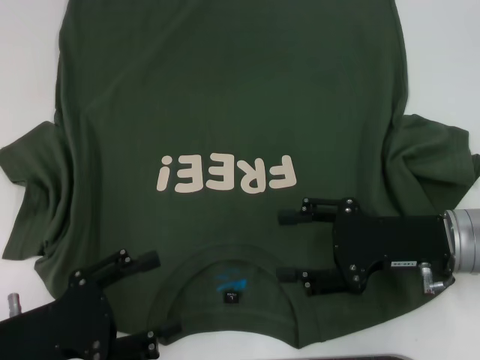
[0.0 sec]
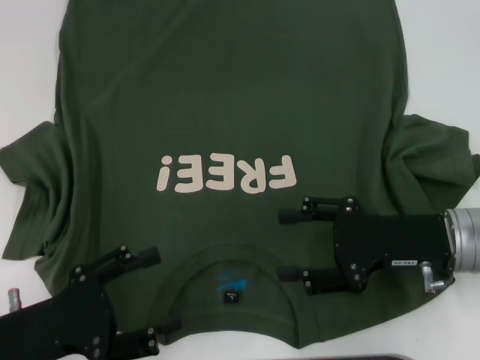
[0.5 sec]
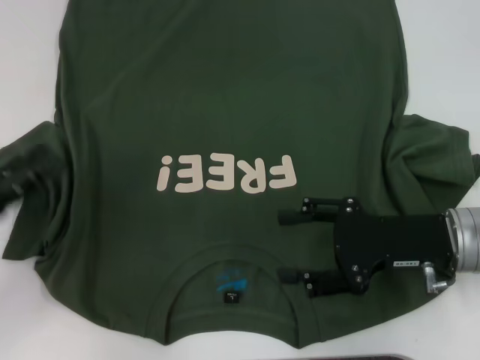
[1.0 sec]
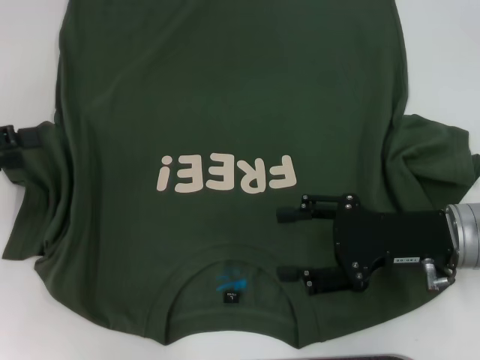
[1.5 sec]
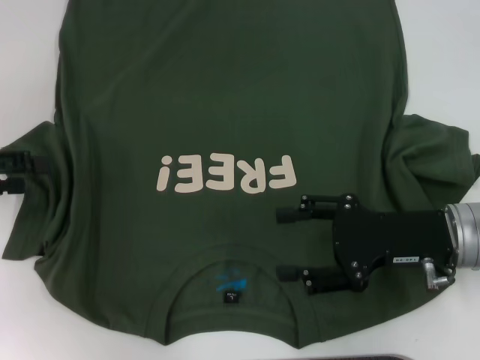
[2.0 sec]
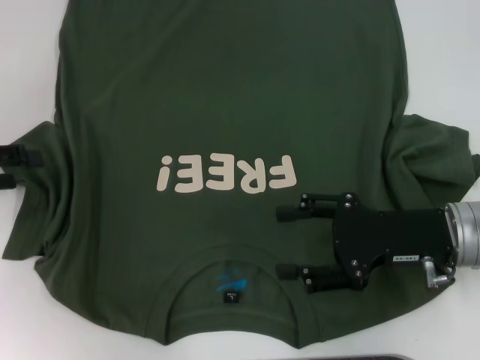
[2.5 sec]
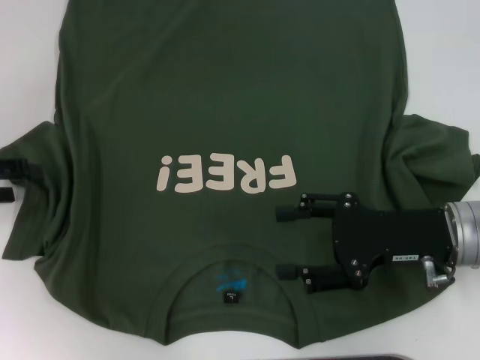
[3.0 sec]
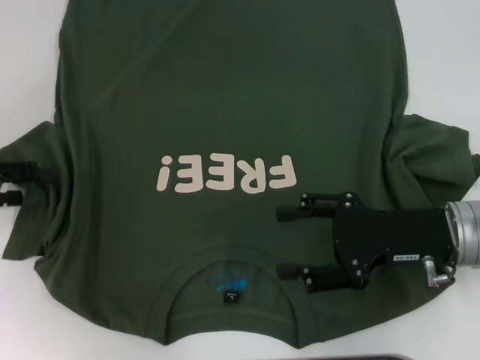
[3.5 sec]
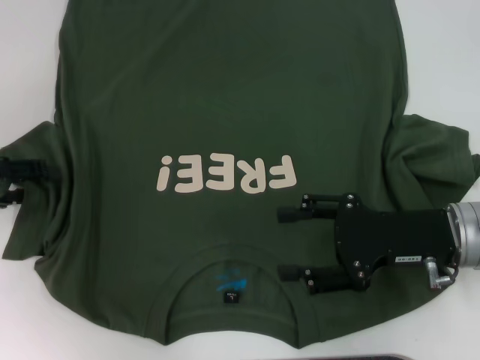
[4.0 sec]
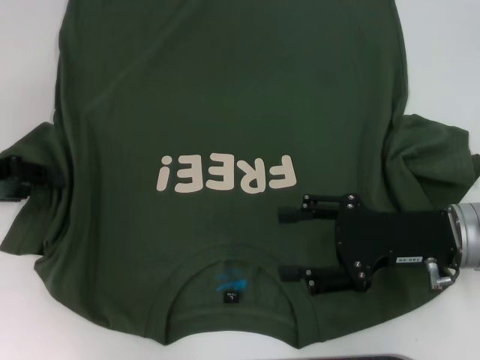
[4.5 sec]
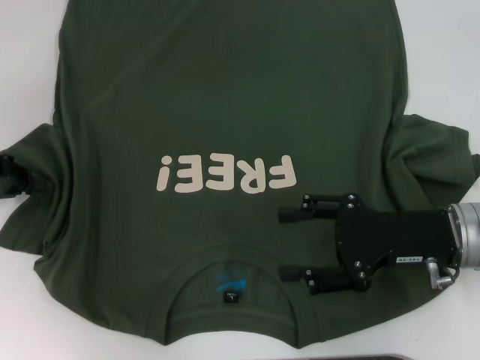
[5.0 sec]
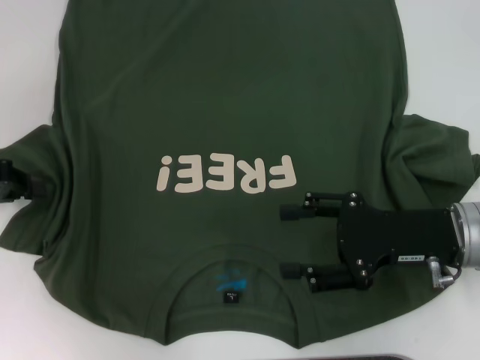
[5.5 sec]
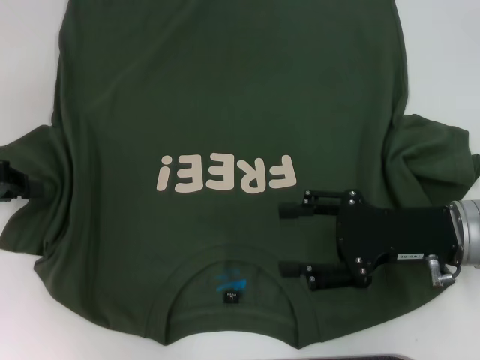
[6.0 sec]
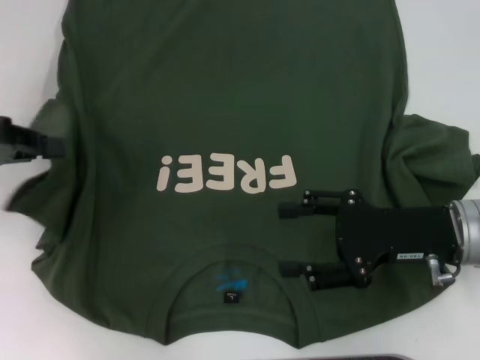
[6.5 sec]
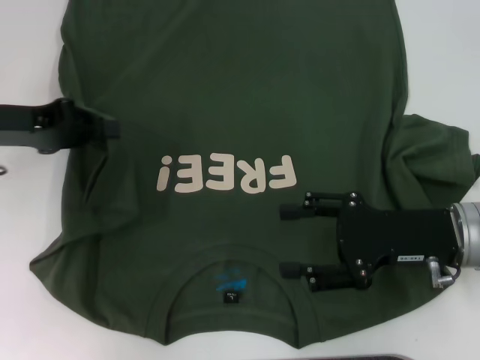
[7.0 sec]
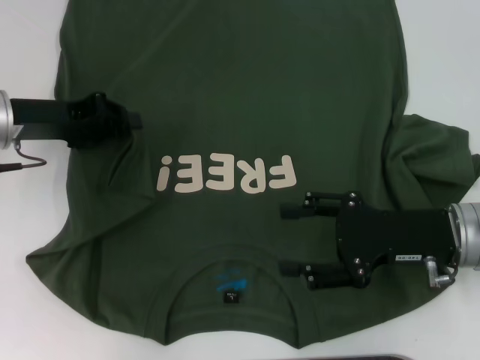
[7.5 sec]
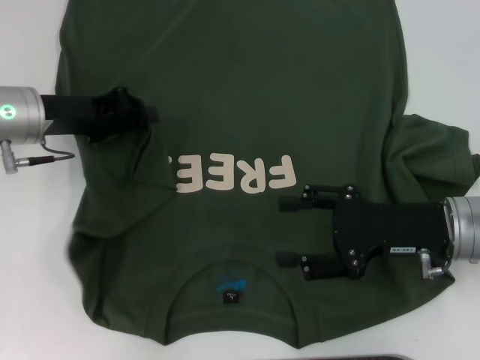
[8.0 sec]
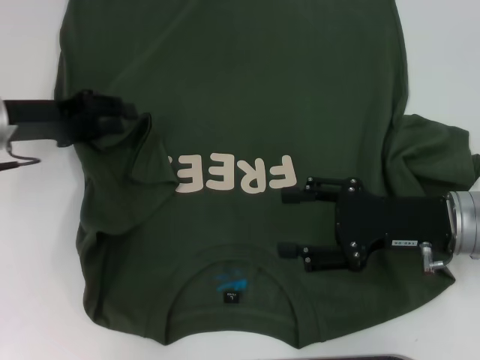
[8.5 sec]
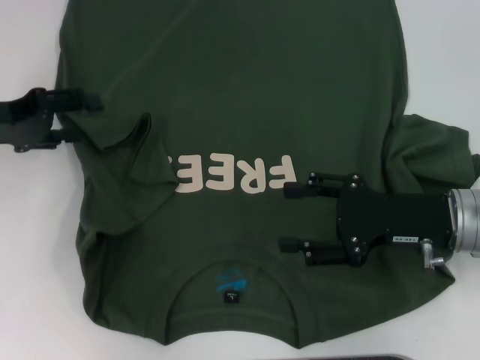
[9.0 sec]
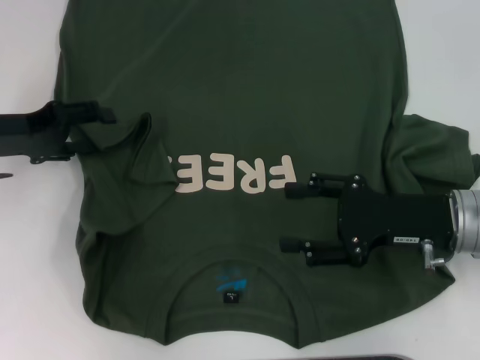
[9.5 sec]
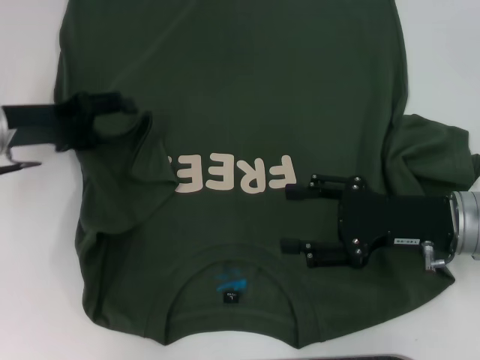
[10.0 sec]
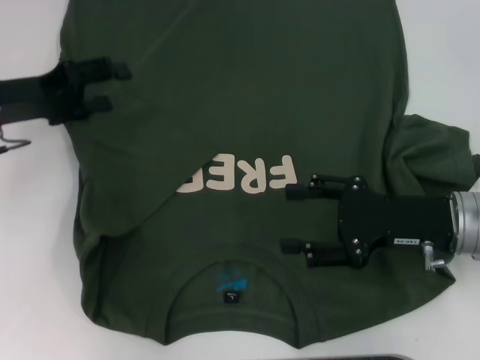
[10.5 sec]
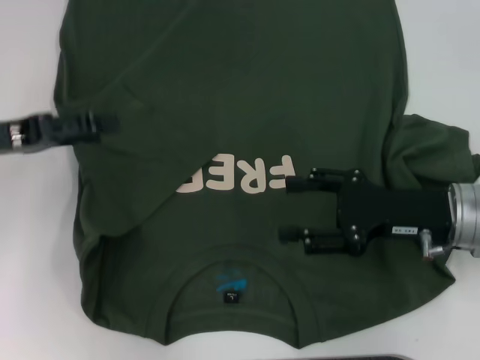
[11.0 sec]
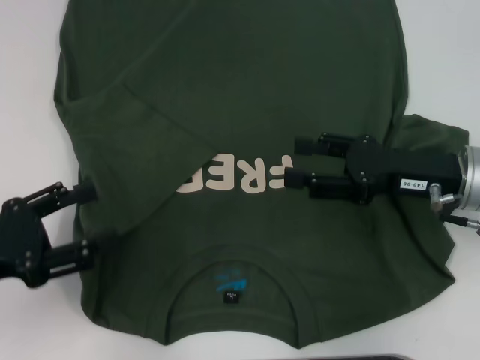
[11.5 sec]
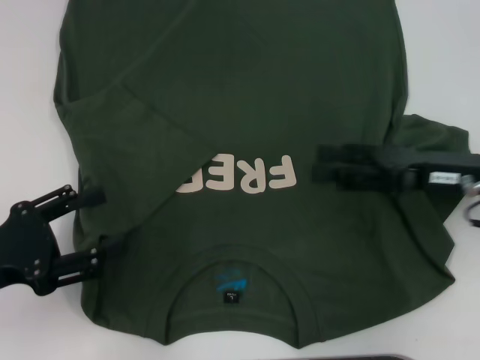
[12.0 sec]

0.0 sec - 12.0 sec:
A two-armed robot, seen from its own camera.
Step, 0.0 sec - 9.0 sec: Fold the bottom left sleeve with your left hand.
0.0 sec - 2.0 sec: The left gripper shifts approximately 20 cm forward, to the left and upward.
2.0 sec - 4.0 sec: The grippers stay close to where they were, moving slightly.
4.0 sec - 6.0 sec: The left gripper closes its fingers.
6.0 sec - 8.0 sec: The left gripper is displaced to the right and forward by roughly 10 cm.
8.0 sec - 10.0 sec: The left gripper opens up.
10.0 sec - 12.0 sec: The left gripper travels backward by about 15 cm.

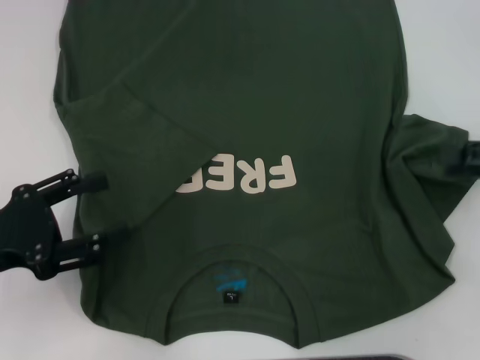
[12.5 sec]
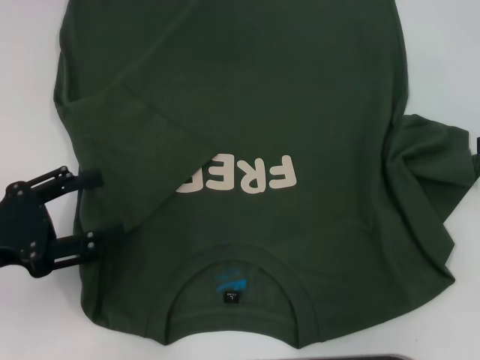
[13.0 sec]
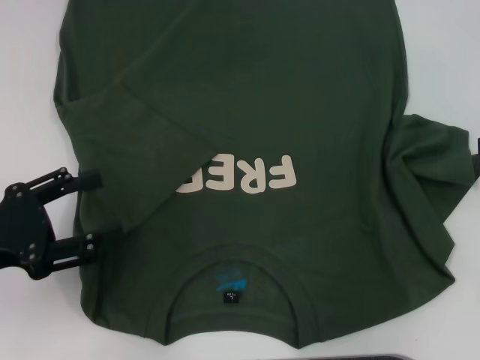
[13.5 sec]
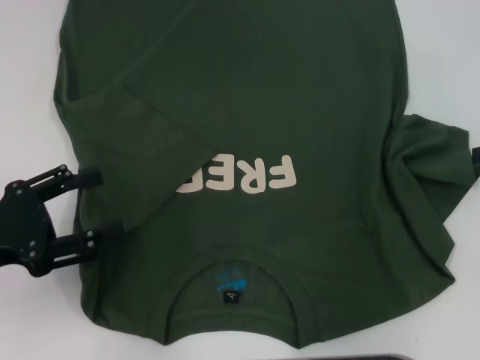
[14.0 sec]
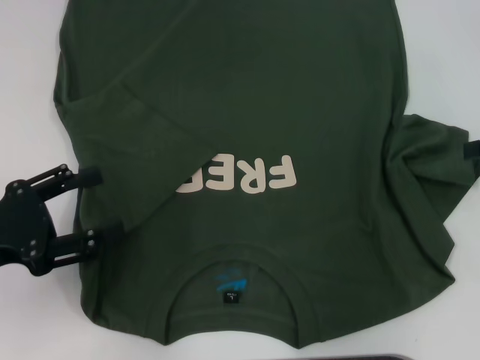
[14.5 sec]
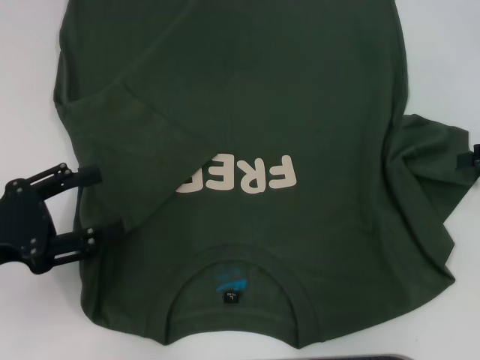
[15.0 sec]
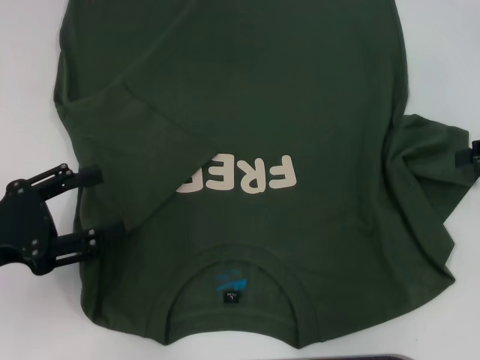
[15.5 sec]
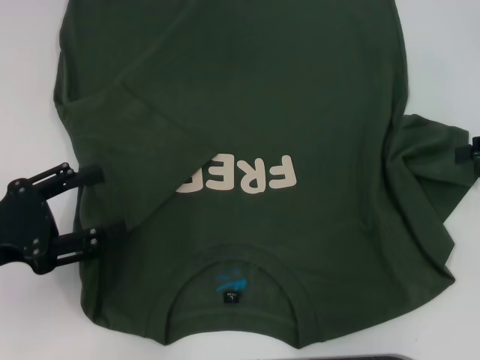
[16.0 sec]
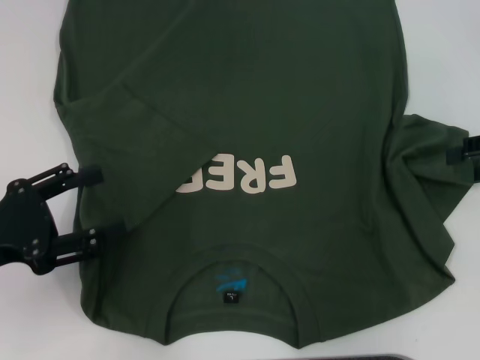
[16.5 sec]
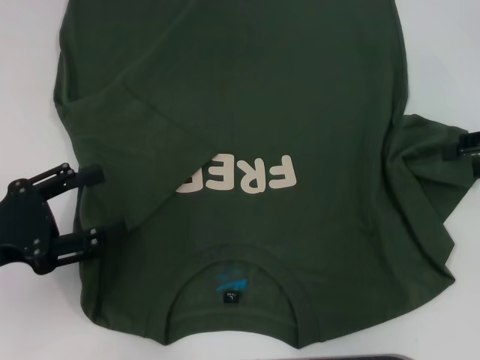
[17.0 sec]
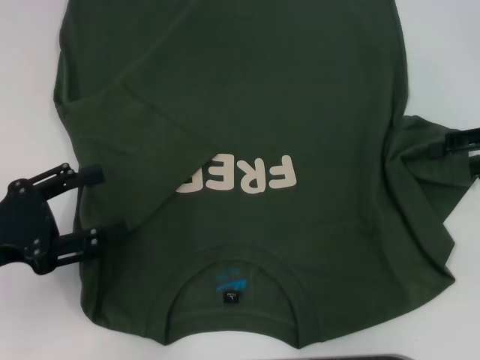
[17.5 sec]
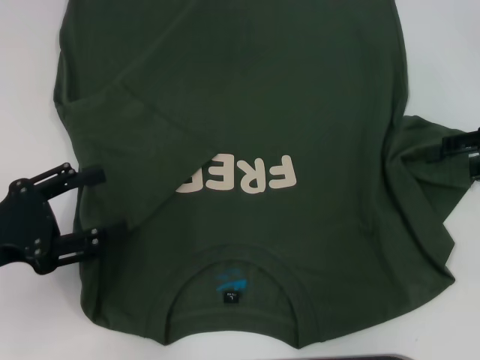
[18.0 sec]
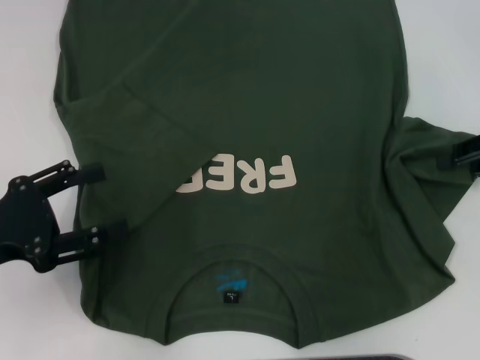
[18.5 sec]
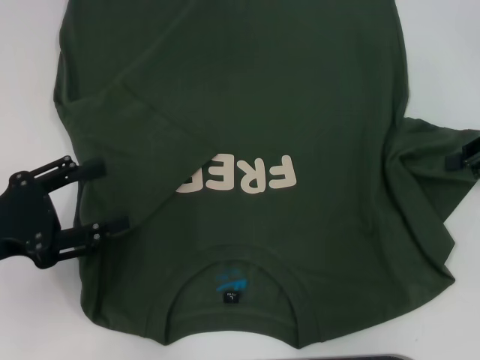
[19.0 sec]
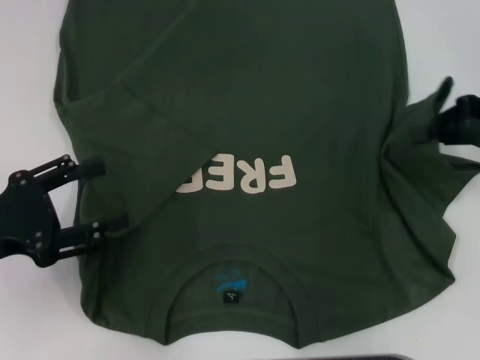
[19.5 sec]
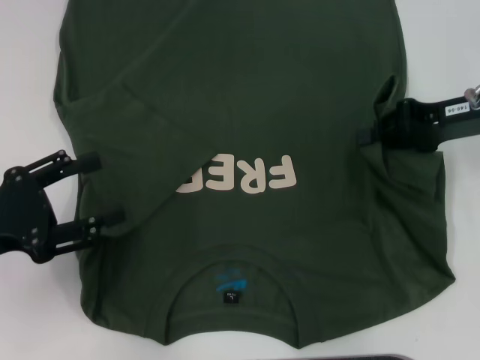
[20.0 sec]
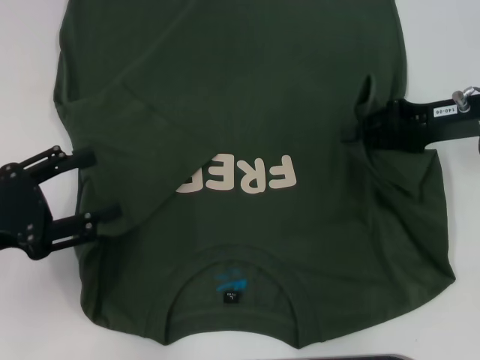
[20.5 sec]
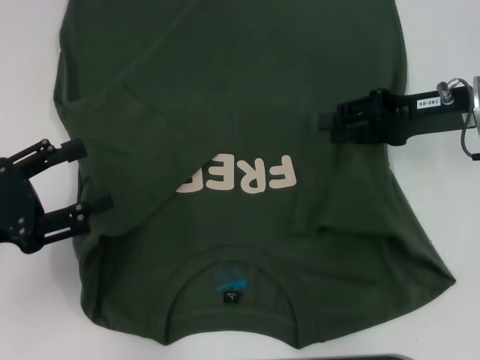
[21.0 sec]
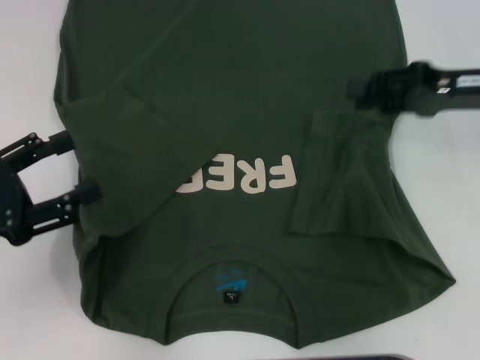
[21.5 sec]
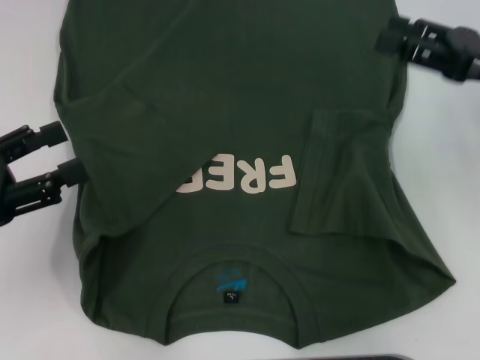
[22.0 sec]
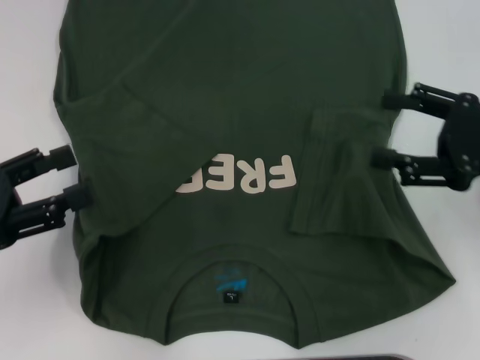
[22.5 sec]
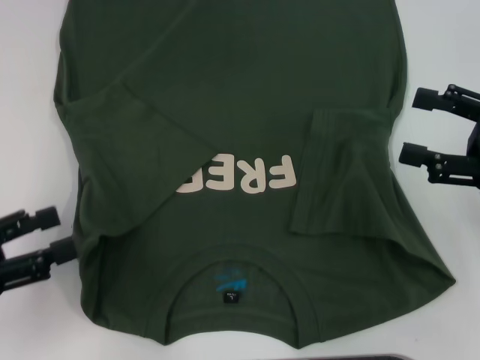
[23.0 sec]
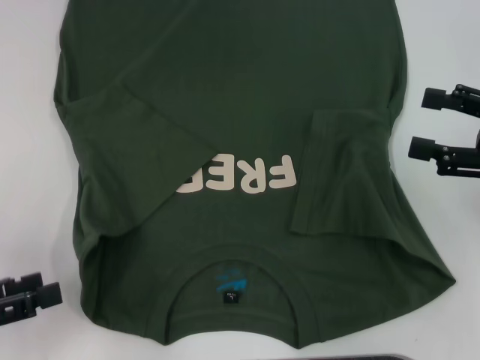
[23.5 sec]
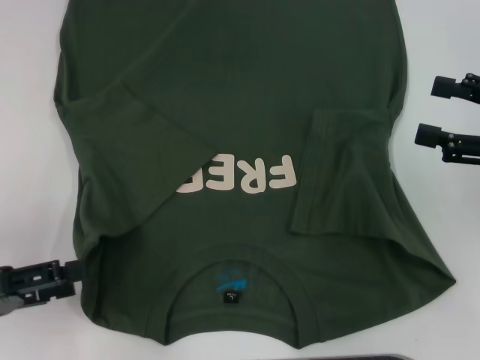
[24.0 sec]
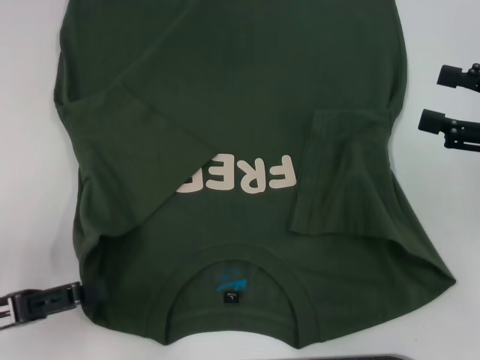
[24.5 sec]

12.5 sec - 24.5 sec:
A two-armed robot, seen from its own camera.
Step, 12.5 sec - 21.0 sec: Fold the bottom right sleeve with your right hand.
16.5 sec - 18.5 sec: There are only small adjustments of the grippers.
18.5 sec - 20.5 sec: The right gripper moves to the left, about 10 cm, and closes its fingers.
20.5 sec - 22.5 sec: The right gripper is displaced backward by approximately 10 cm, and opens up.
22.5 sec - 24.5 sec: The left gripper moves approximately 5 cm.

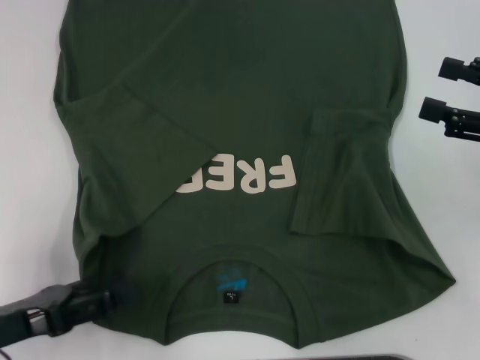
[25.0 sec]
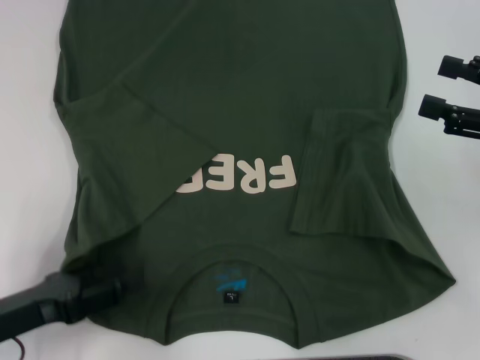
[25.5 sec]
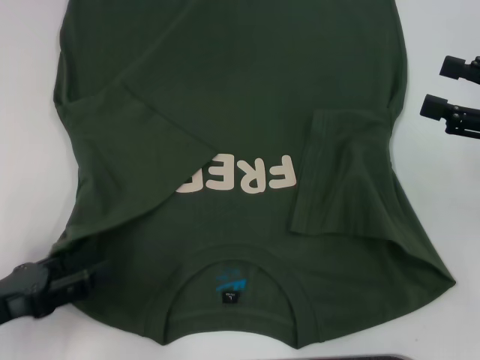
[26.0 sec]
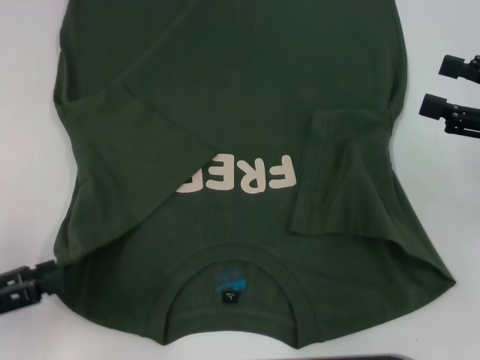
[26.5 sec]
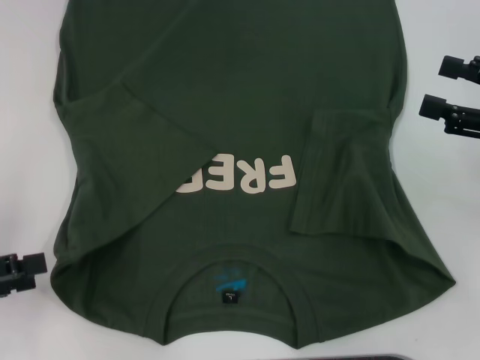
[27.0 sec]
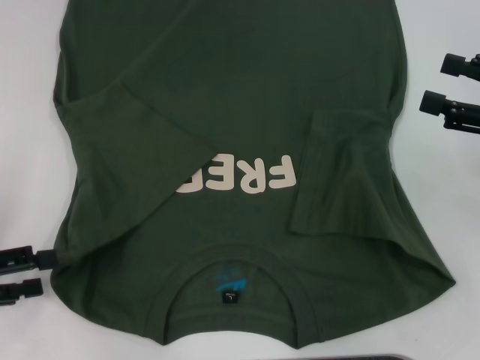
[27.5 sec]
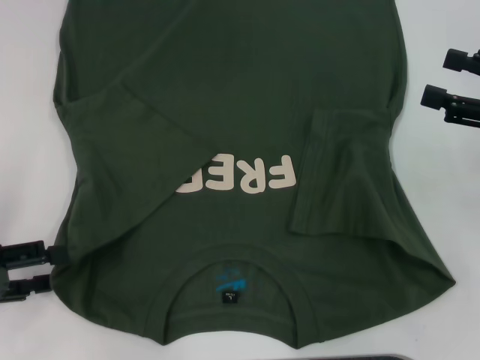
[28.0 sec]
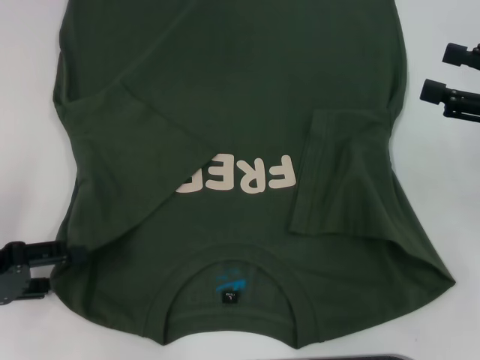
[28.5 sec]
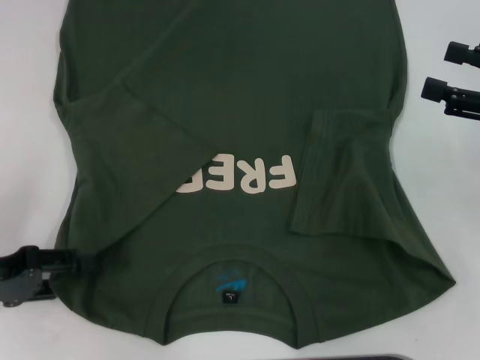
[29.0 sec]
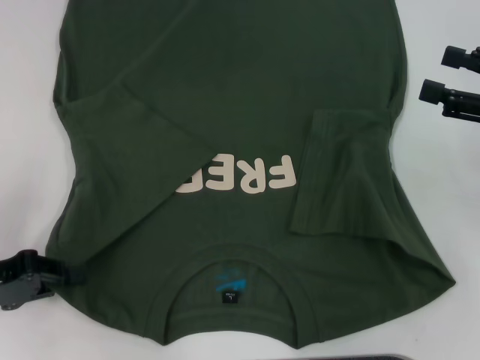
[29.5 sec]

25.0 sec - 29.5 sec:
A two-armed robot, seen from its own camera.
25.0 sec - 27.0 sec: The left gripper goes some 10 cm to the left.
27.0 sec - 29.5 sec: The left gripper moves about 5 cm, and closes its fingers.
